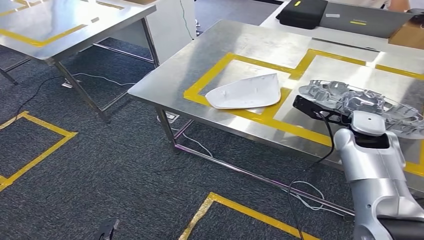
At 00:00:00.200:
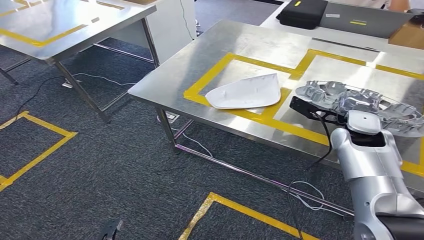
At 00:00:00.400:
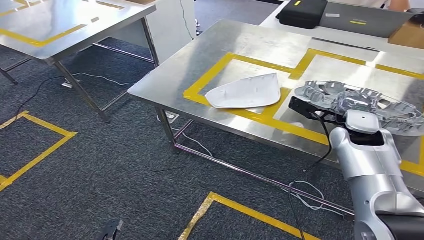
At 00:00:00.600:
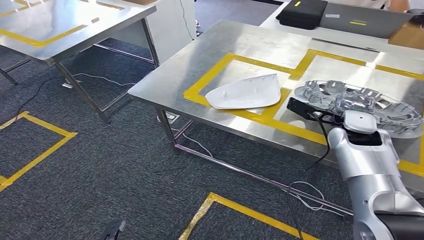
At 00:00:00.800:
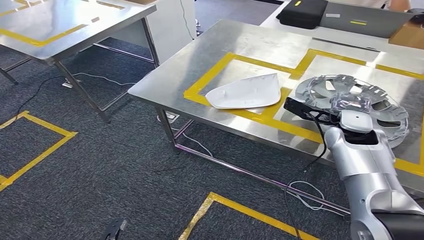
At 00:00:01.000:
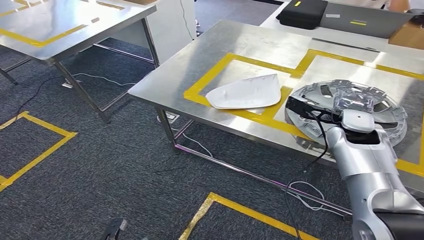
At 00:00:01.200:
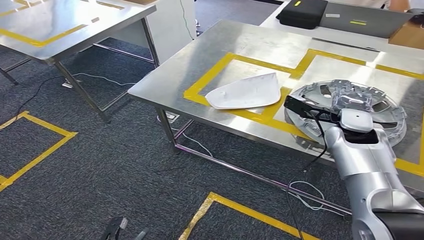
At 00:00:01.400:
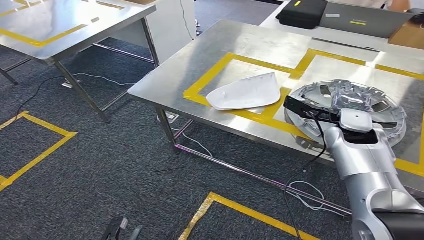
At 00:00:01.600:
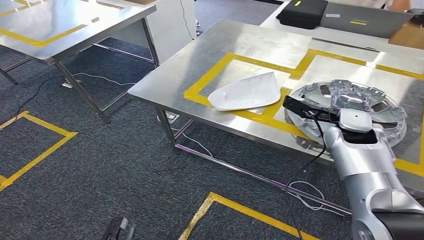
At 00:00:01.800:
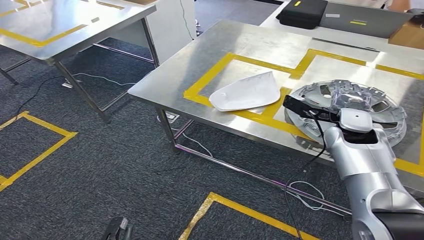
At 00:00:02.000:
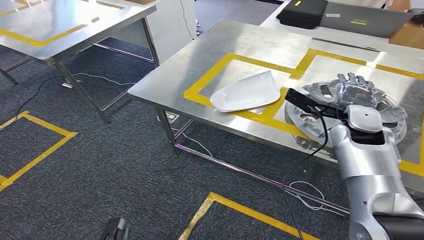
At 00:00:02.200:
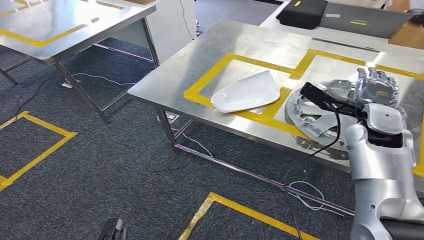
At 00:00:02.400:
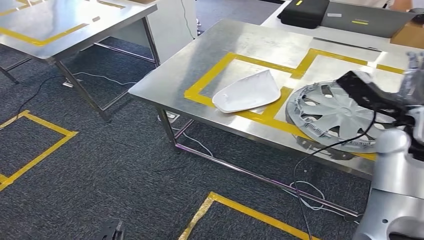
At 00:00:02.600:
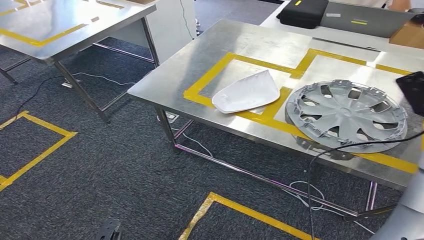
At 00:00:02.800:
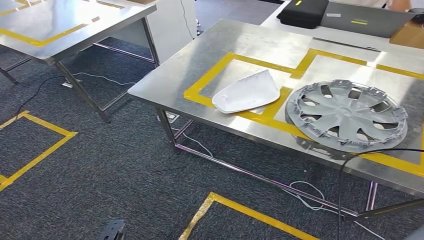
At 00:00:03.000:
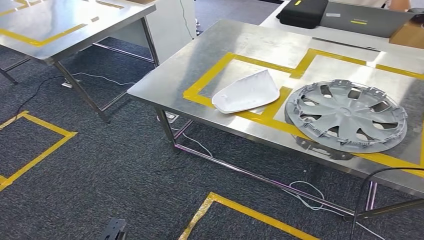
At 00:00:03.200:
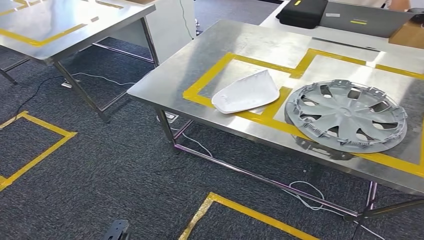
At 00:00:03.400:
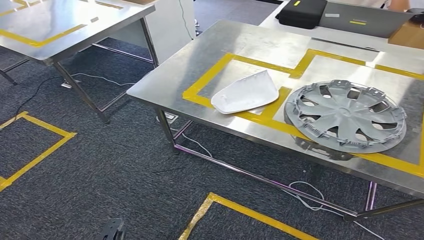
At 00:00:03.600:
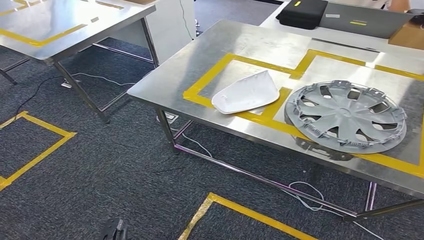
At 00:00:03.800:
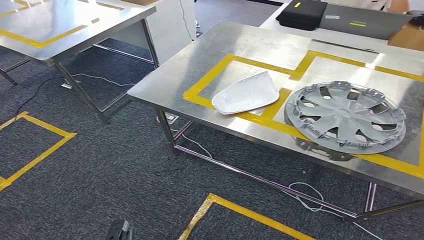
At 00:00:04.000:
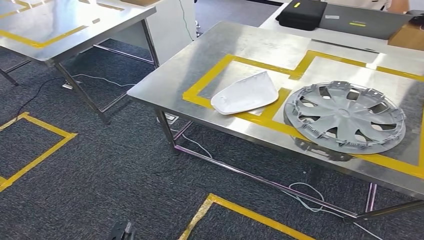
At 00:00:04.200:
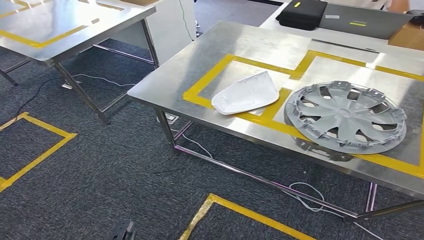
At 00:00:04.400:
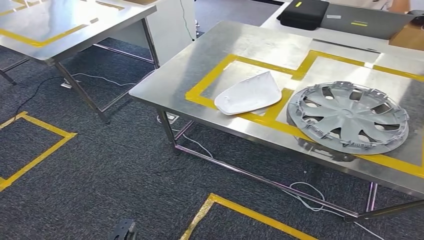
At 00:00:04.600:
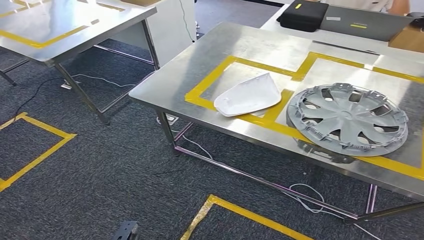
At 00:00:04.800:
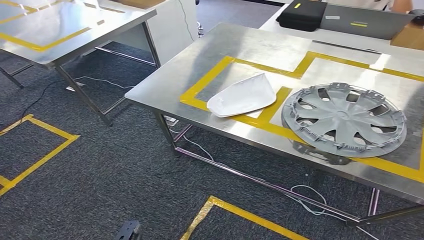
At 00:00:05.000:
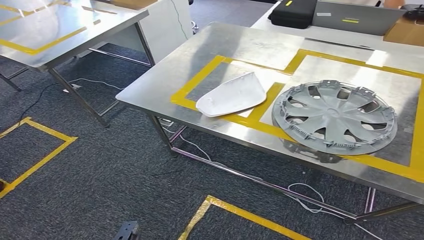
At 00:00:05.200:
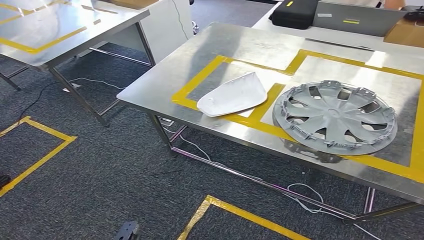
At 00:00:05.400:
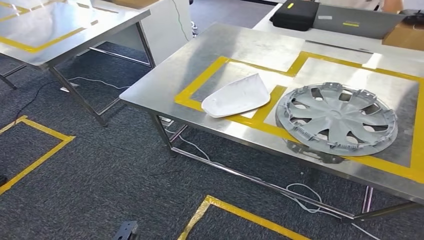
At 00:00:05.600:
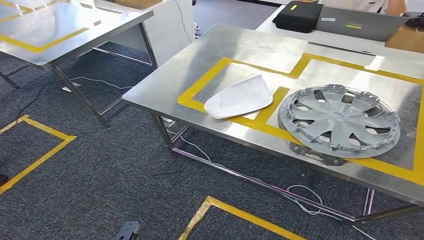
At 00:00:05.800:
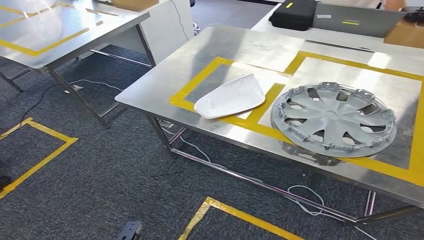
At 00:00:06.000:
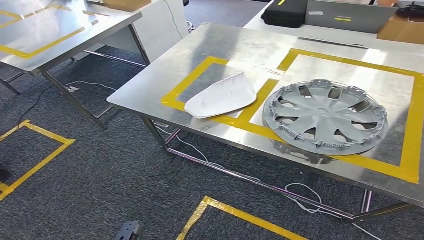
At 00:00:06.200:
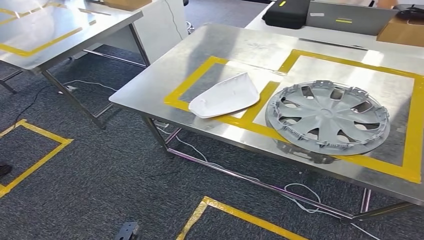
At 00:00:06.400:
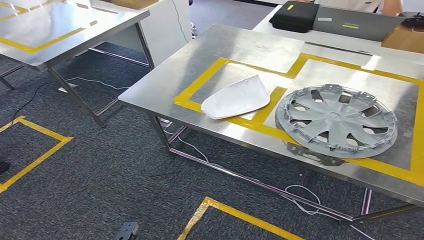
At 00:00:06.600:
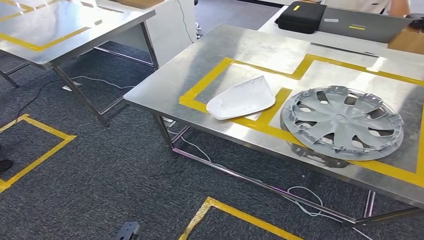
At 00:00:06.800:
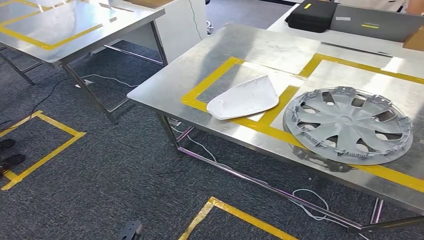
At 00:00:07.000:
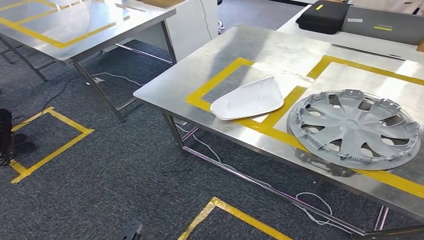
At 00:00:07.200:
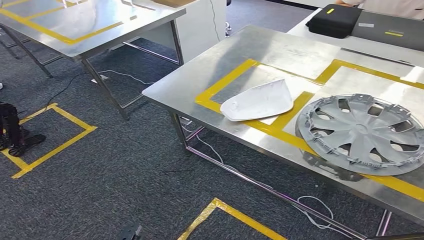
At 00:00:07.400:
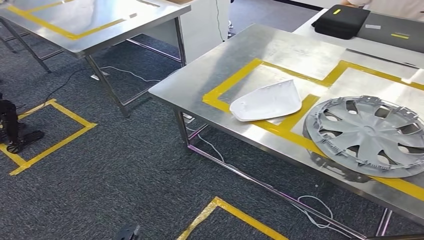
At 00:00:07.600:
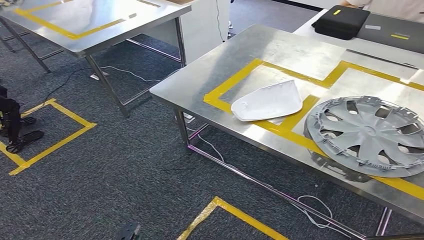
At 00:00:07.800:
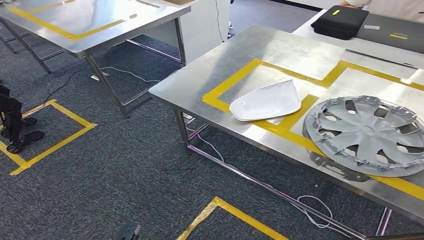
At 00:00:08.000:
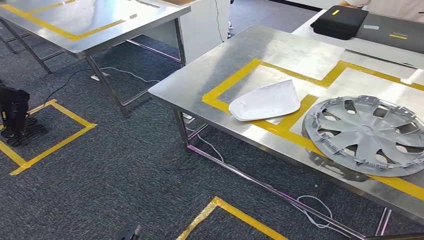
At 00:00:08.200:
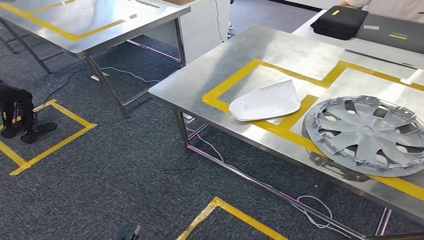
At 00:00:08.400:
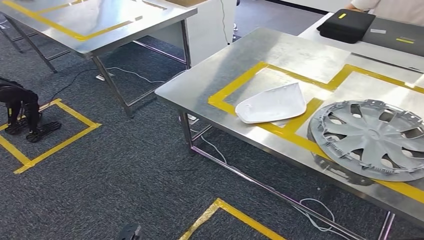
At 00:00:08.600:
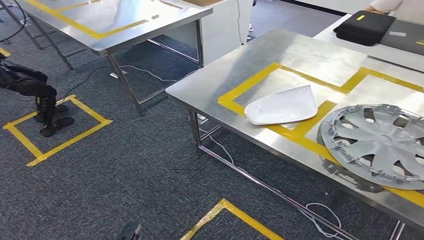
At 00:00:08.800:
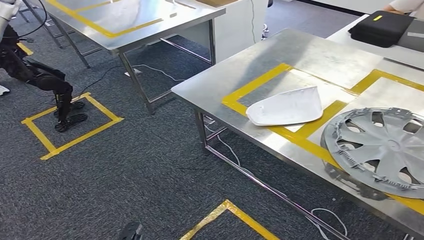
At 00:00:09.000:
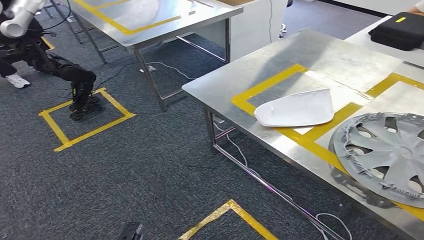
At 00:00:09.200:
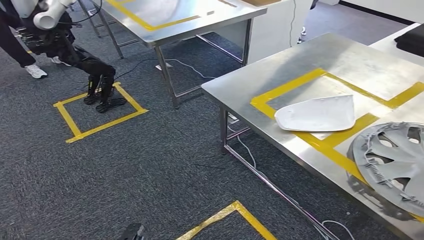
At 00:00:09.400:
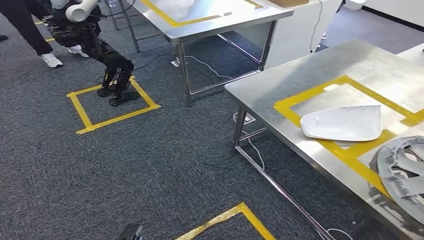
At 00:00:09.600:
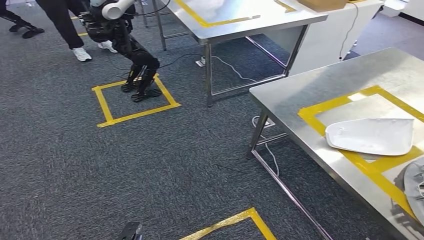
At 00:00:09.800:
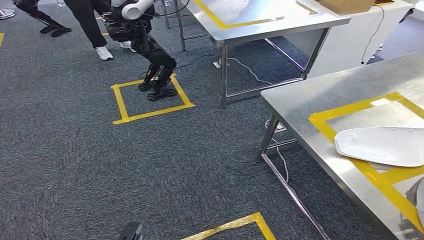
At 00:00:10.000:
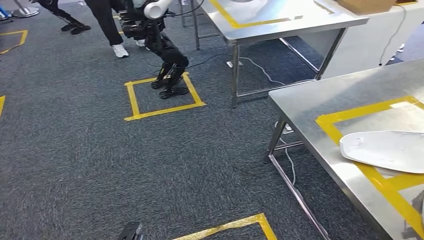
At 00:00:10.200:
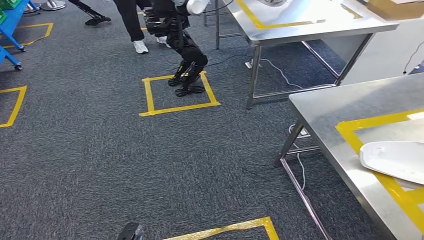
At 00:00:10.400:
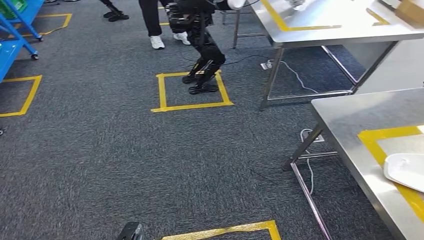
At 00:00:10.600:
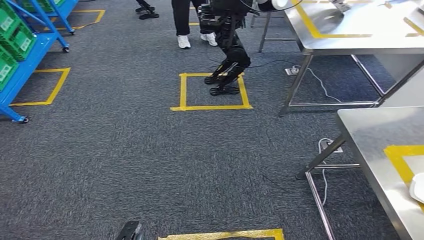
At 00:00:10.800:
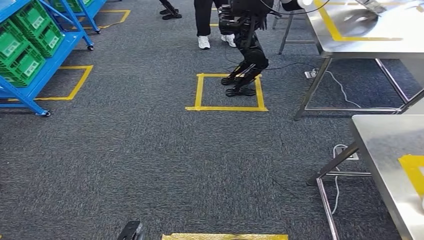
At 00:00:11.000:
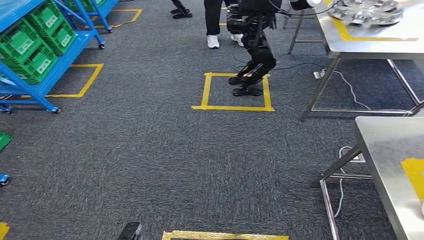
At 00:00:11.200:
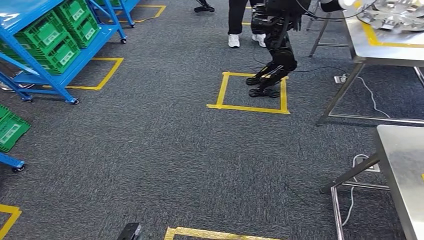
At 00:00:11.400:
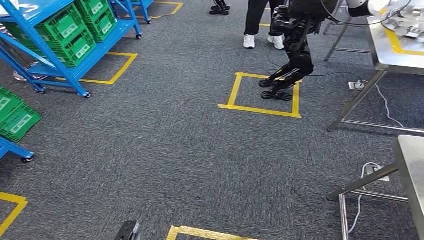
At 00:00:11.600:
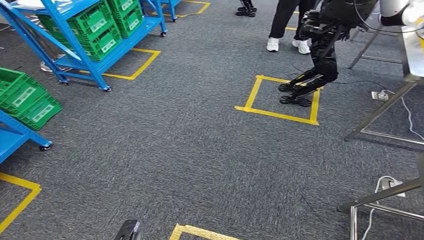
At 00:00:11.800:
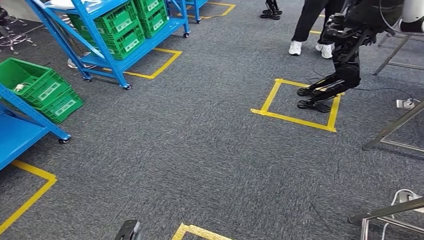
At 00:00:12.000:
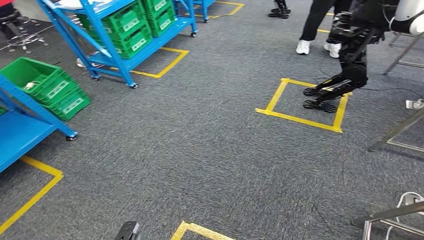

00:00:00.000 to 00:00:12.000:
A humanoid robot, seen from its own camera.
Step, 00:00:00.000 to 00:00:04.000: Insert the small component into the corresponding slot on the workbench.
00:00:00.000 to 00:00:01.600: The hands make only small movements.
00:00:01.600 to 00:00:03.000: The right hand heads backward and to the right, covering approximately 30 cm.
00:00:03.000 to 00:00:04.400: The right hand travels downward by roughly 40 cm.

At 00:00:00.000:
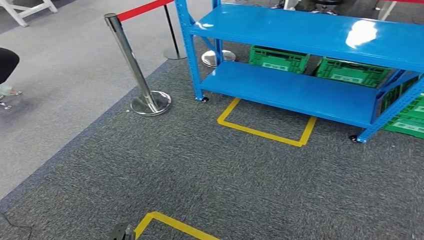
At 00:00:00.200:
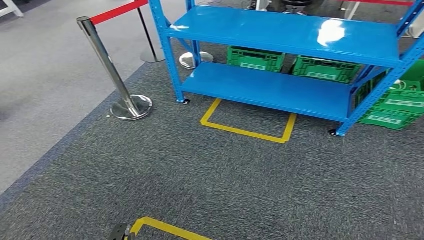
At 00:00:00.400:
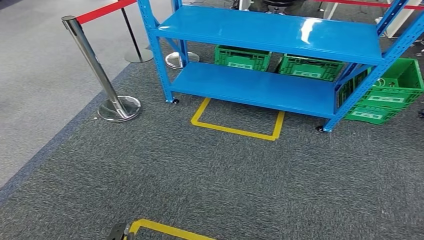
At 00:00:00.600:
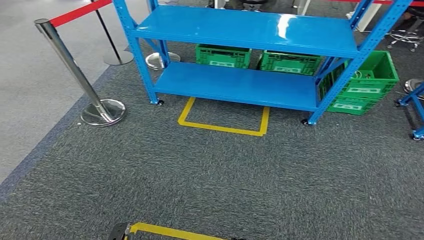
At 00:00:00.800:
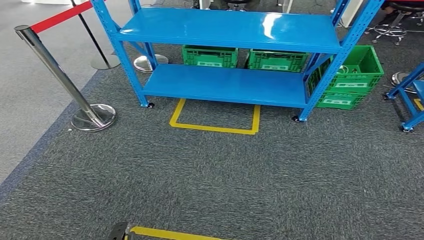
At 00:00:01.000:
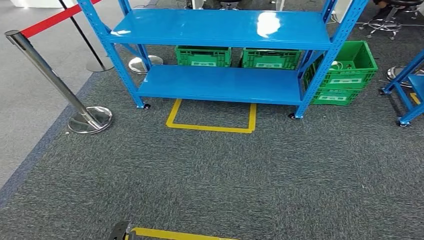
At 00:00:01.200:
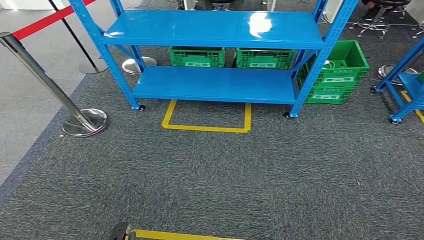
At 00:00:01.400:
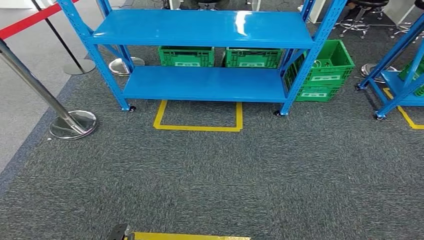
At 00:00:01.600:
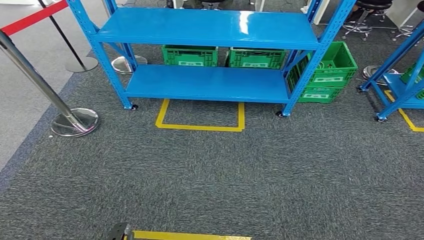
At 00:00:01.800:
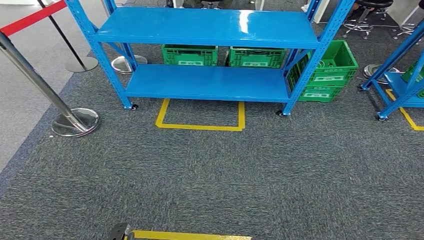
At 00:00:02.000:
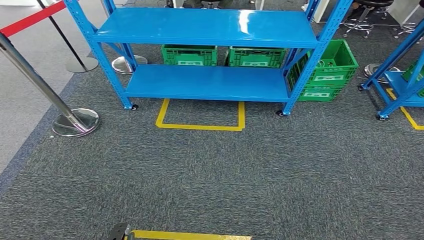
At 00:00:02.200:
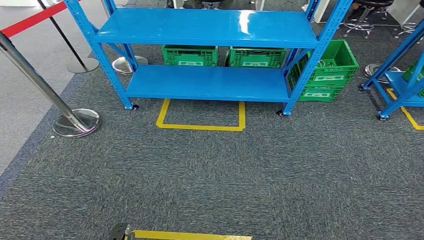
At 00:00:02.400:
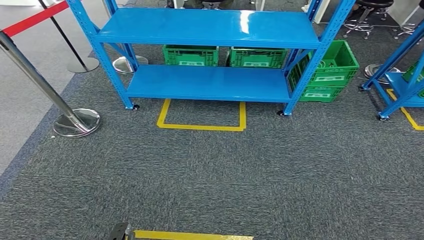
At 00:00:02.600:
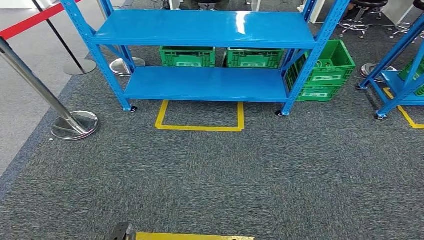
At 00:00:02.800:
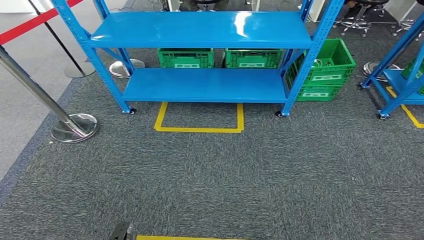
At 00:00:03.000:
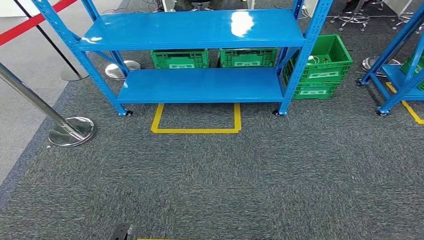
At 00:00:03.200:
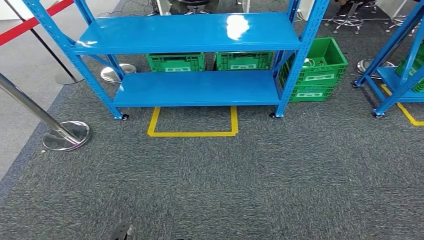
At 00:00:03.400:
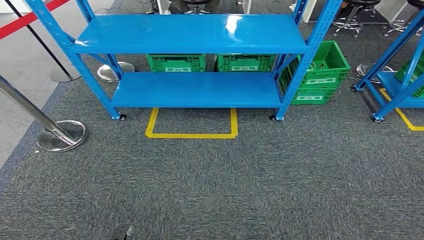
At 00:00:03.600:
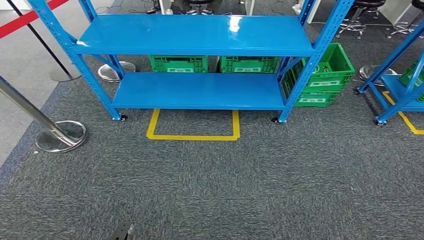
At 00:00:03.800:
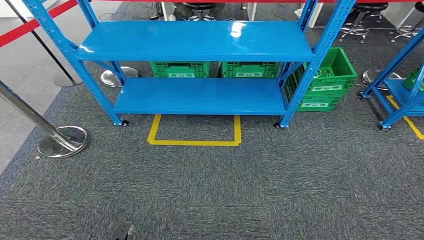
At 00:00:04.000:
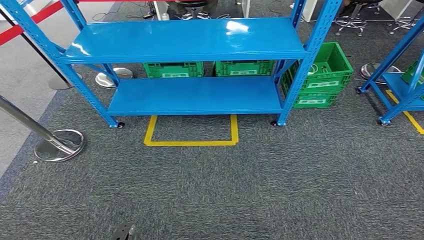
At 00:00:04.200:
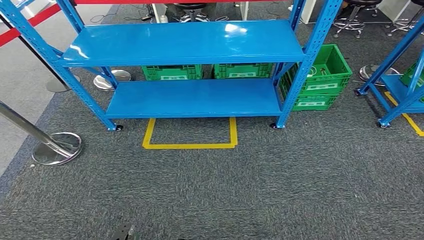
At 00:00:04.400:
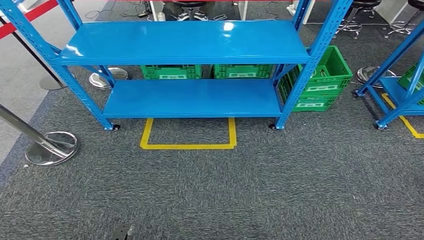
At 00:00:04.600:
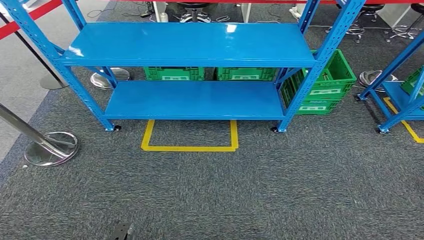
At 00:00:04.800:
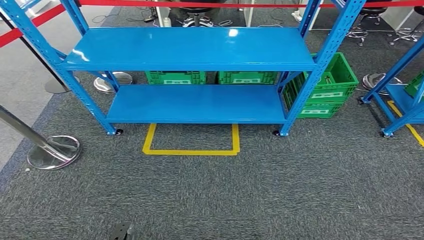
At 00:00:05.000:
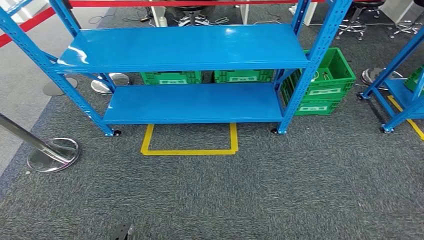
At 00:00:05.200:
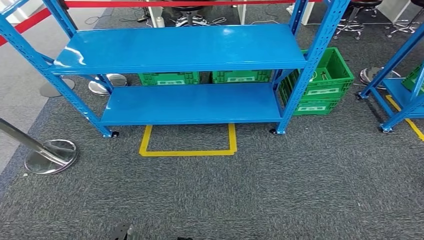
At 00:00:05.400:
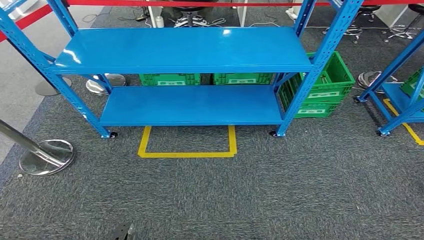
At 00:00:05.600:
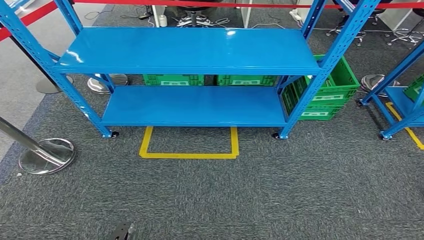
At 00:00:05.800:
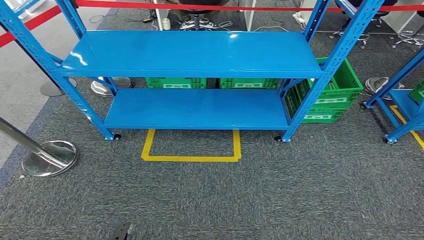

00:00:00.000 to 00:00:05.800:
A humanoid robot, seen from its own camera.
00:00:01.400 to 00:00:02.800: The two hands keep their place.
